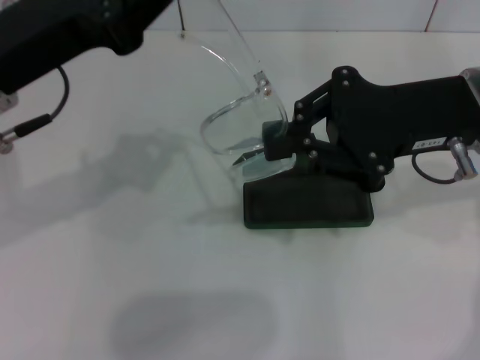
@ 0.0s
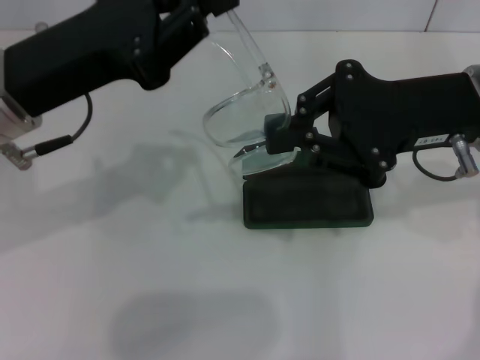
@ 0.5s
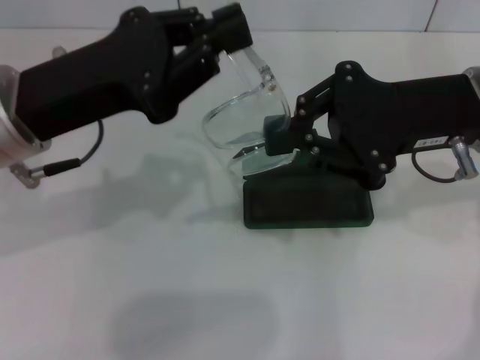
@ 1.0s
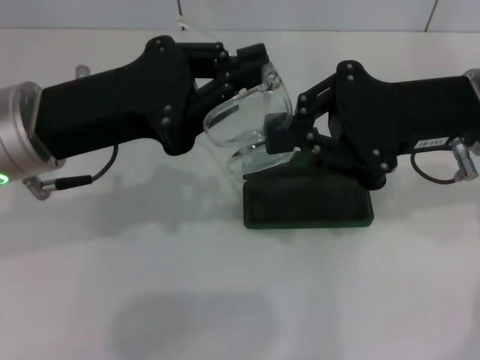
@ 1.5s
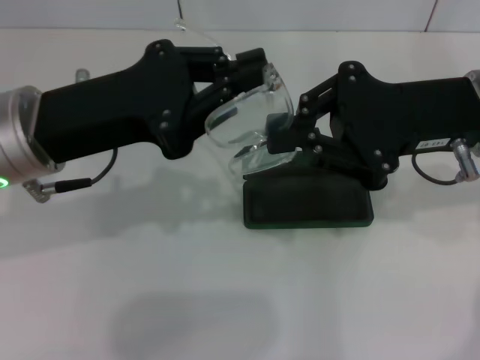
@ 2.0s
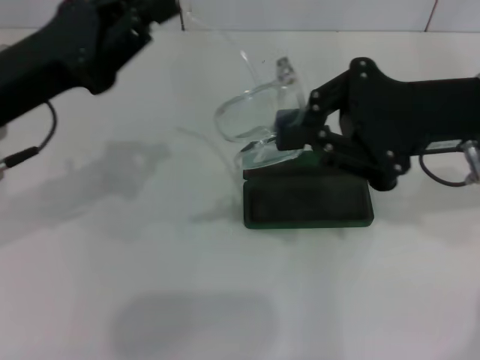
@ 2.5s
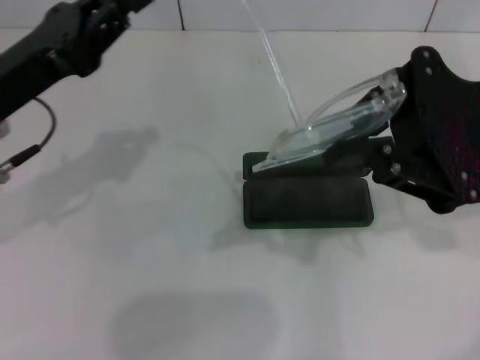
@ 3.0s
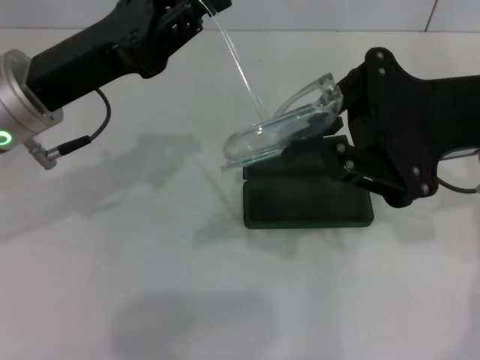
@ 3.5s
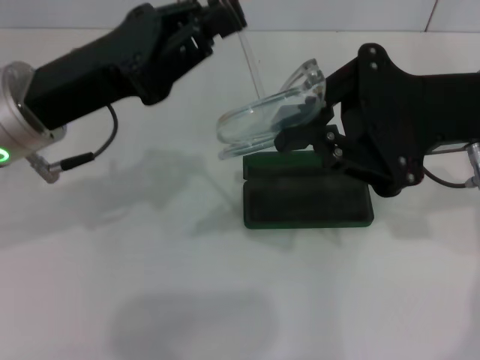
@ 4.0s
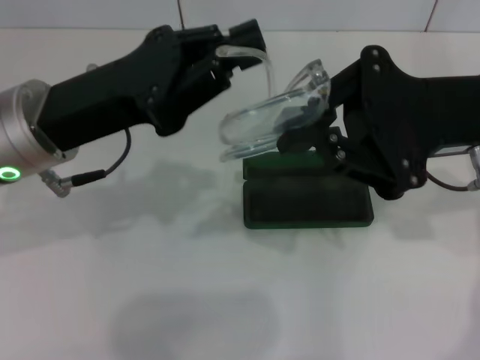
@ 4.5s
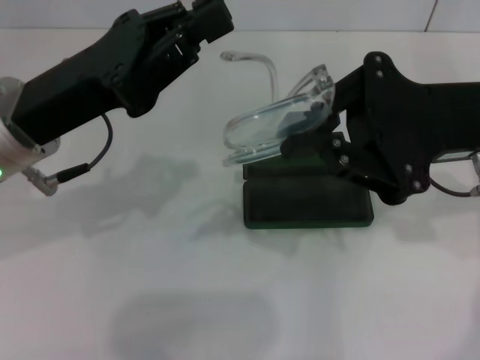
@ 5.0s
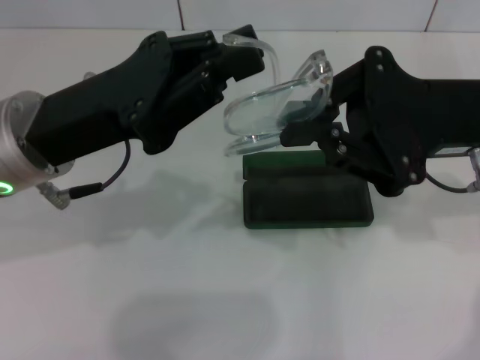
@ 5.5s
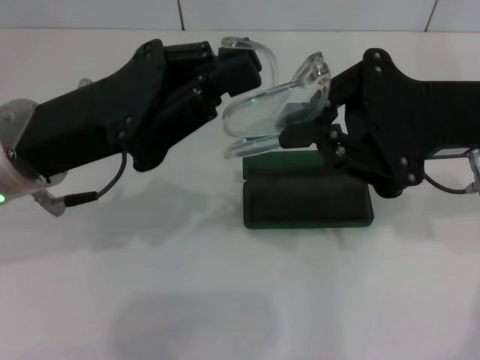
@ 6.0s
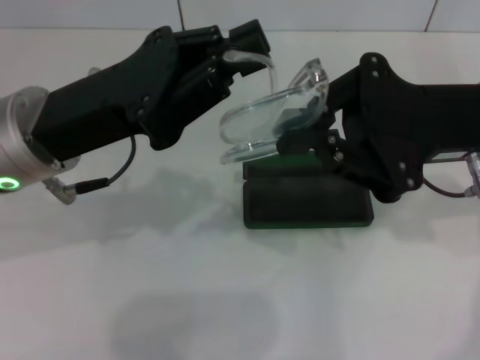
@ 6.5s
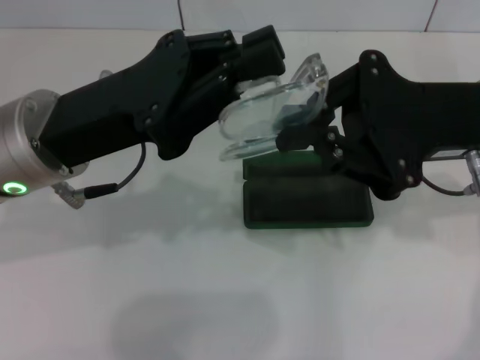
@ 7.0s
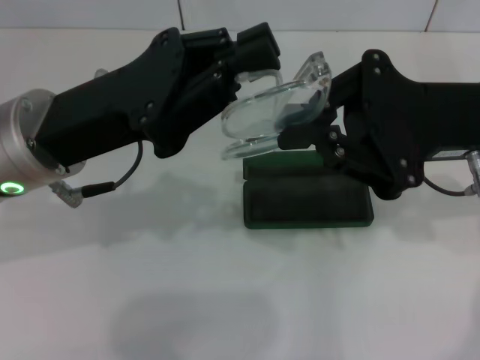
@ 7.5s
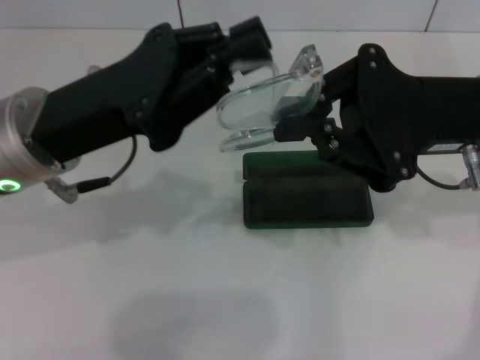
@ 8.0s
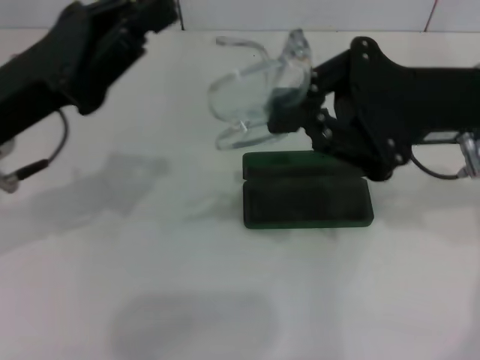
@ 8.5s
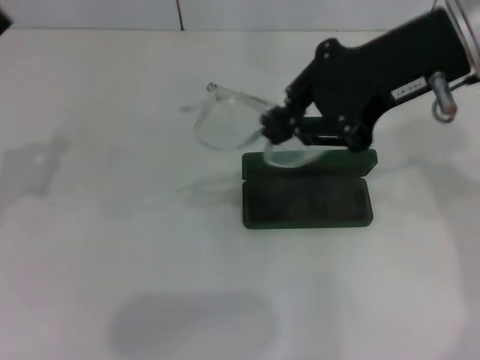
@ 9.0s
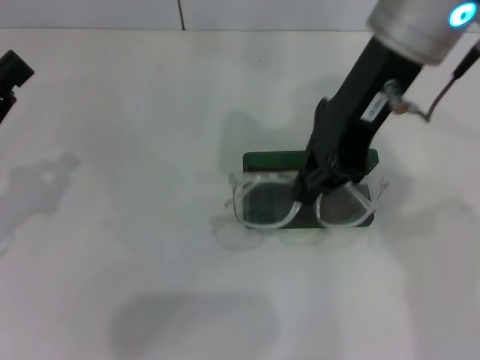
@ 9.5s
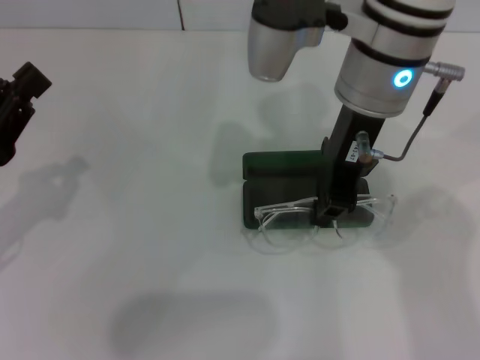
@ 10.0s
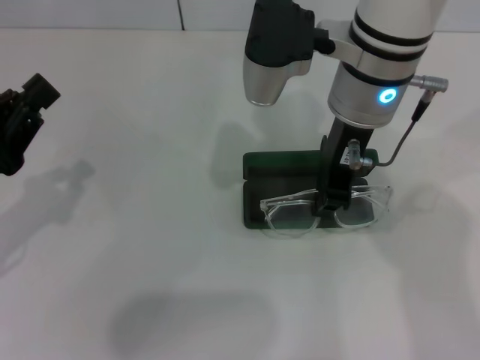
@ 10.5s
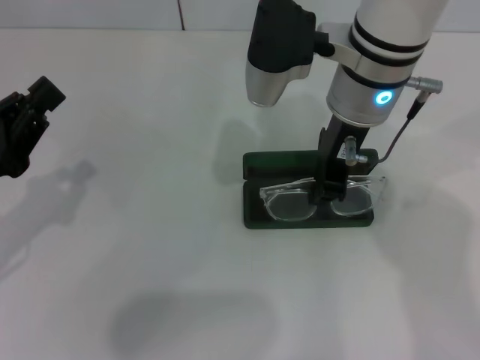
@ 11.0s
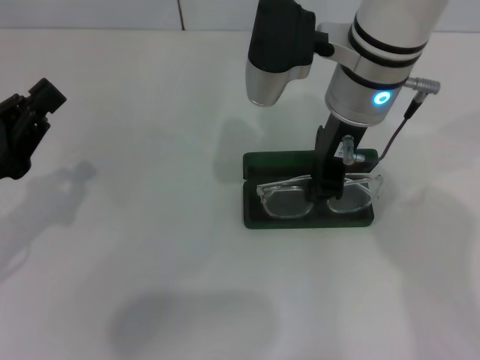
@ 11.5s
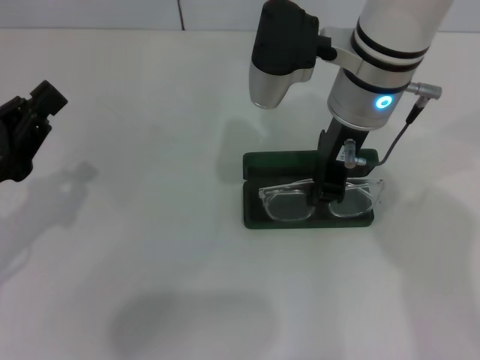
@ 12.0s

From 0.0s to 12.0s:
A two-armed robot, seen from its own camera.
Step, from 0.0s to 7.5s: Fold the frame with your left hand.
From 6.0s to 8.0s: Both grippers stay put.
From 8.0s to 10.0s: The right gripper is displaced to the left and forward by approximately 15 cm. Meanwhile the left gripper heads to the left and downward, covering approximately 15 cm.
From 10.0s to 12.0s: The grippers make only small movements.

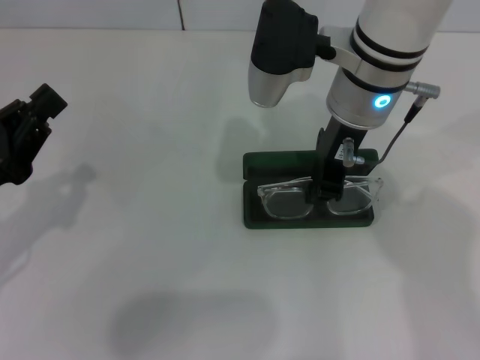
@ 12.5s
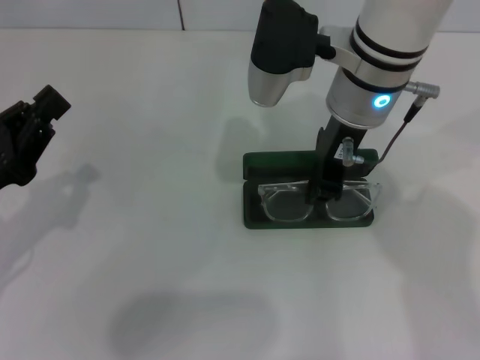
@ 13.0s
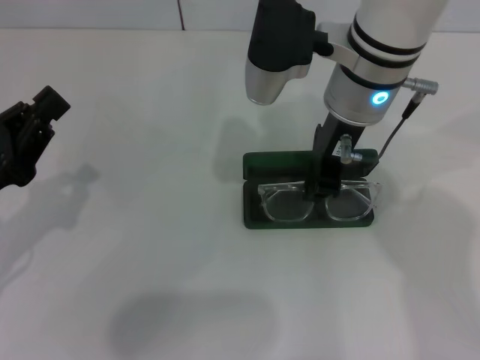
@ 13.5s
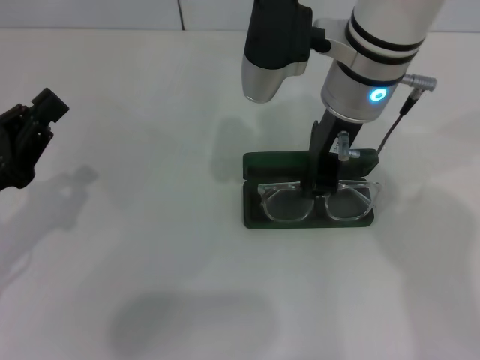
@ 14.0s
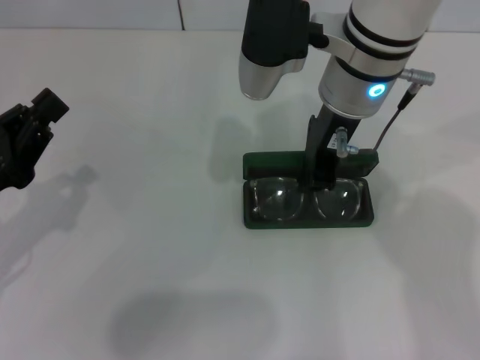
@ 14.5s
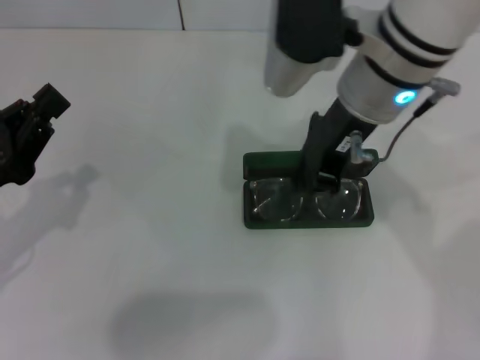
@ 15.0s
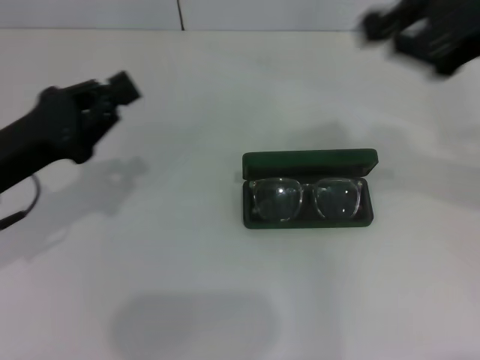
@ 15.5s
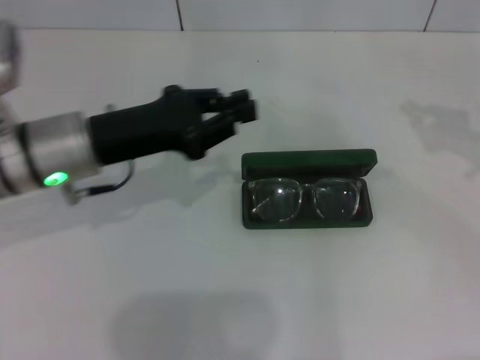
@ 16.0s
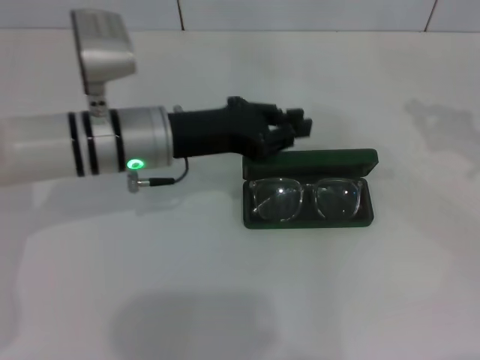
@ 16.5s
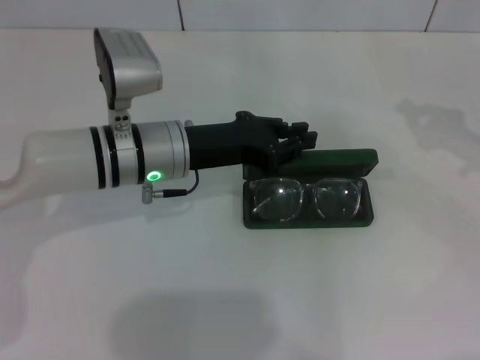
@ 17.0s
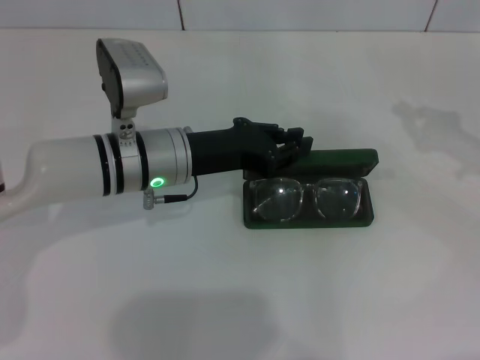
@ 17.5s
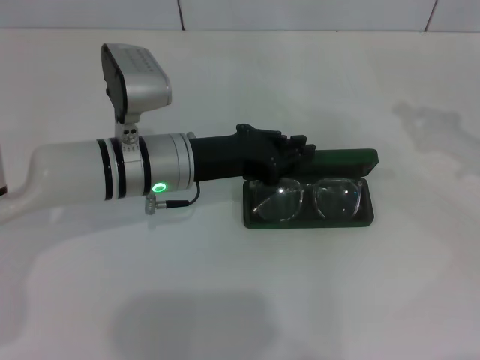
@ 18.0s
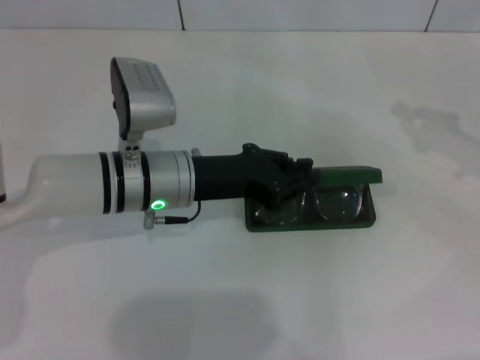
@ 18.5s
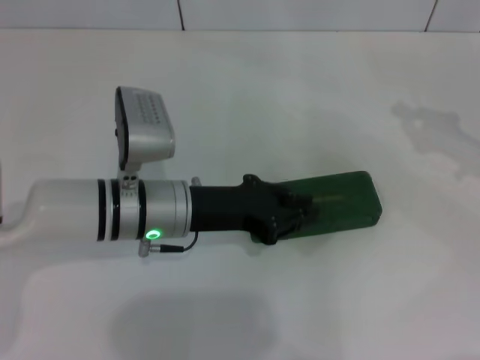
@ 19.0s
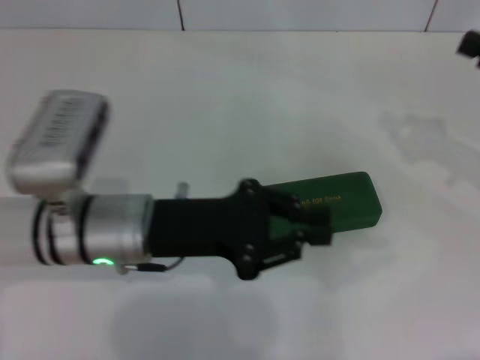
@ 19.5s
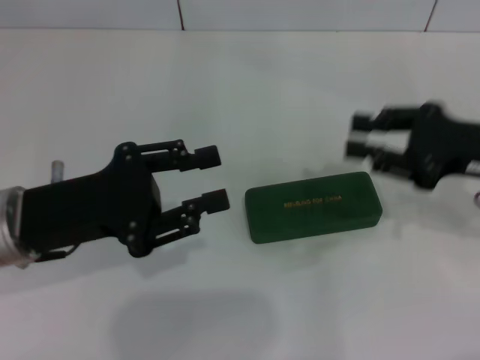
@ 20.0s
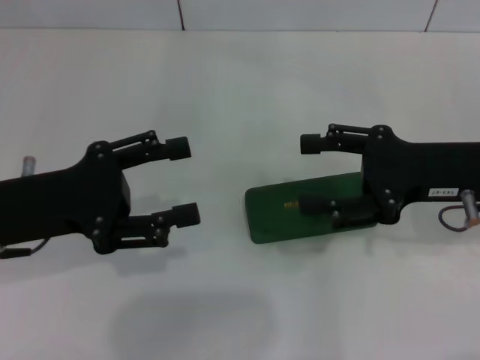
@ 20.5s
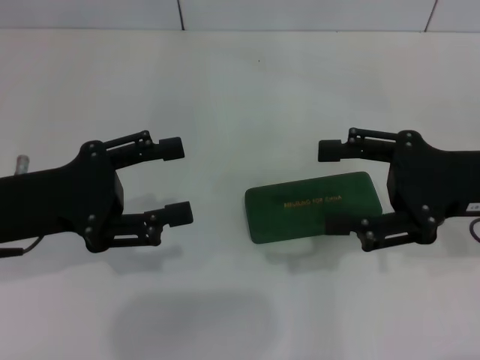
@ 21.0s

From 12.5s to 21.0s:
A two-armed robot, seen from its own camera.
Step, from 12.5s to 14.5s: Put the glasses into the case with your right hand.
Step, from 15.0s to 18.5s: Close the glasses case with your left hand.
From 12.5s to 14.5s: The grippers move only a little.
From 14.5s to 16.5s: The right gripper moves to the right, approximately 30 cm. The left gripper goes approximately 20 cm to the right and forward.
From 16.5s to 19.0s: The left gripper changes place by about 5 cm.
From 19.0s to 21.0s: The left gripper heads to the left and upward, covering approximately 15 cm, and opens. The right gripper travels to the left by approximately 10 cm, and opens its fingers.

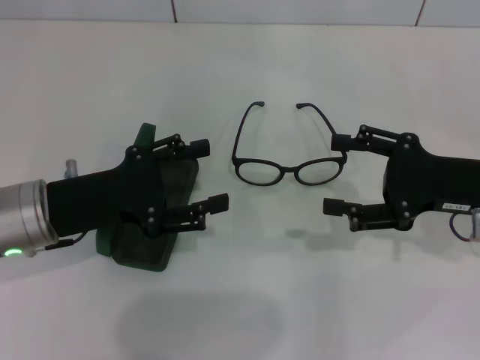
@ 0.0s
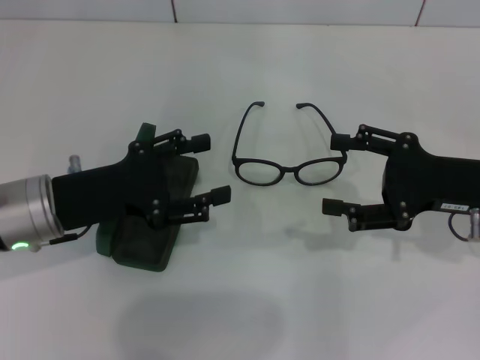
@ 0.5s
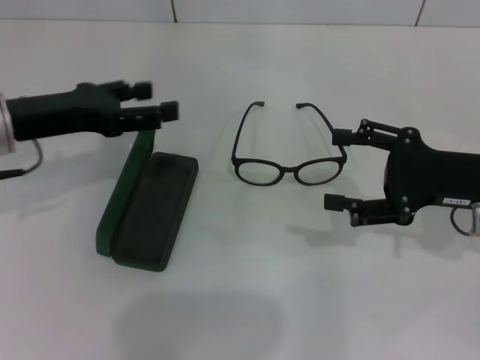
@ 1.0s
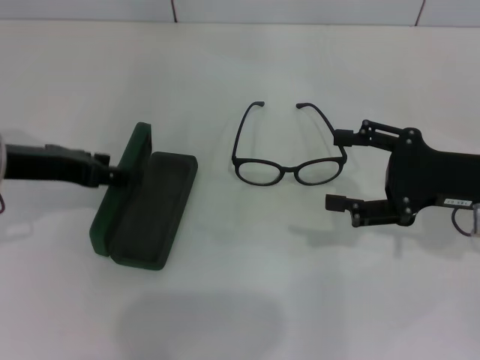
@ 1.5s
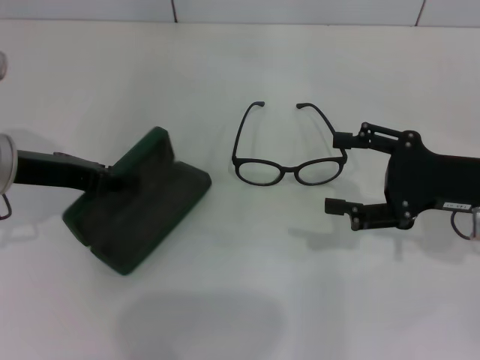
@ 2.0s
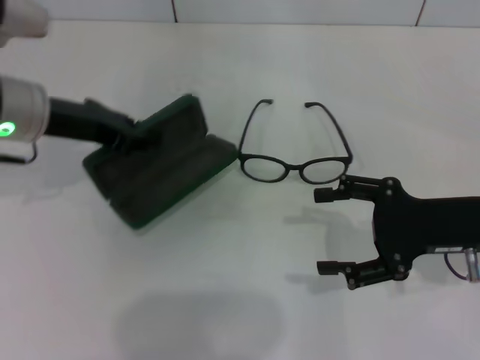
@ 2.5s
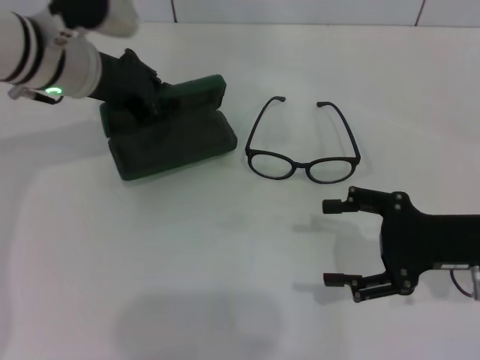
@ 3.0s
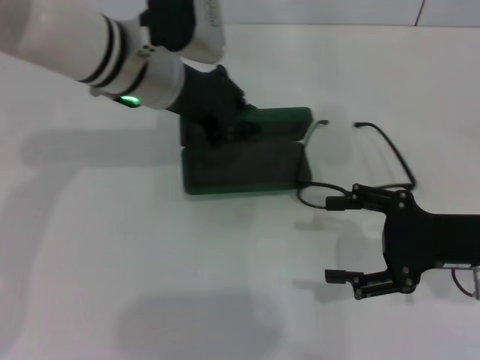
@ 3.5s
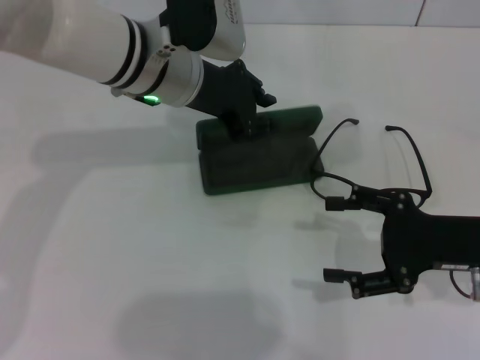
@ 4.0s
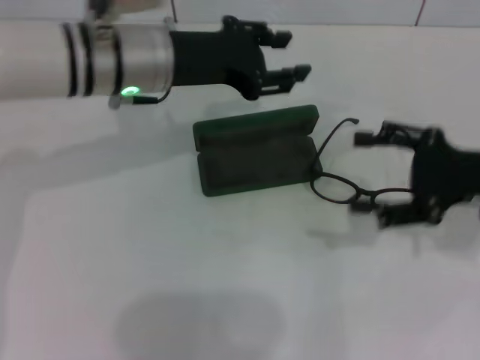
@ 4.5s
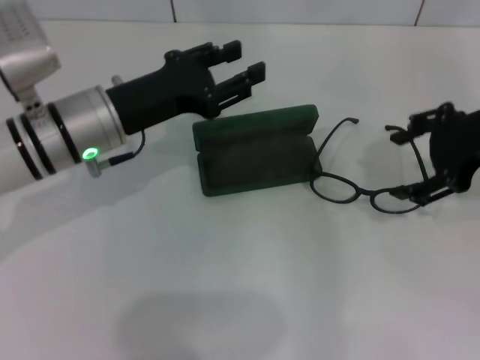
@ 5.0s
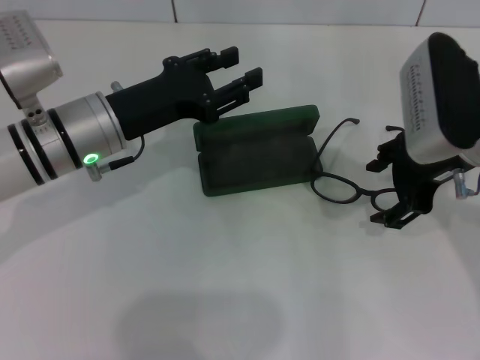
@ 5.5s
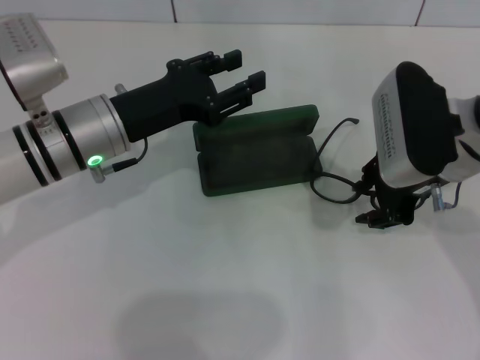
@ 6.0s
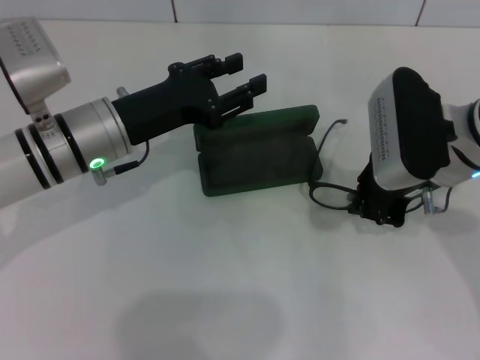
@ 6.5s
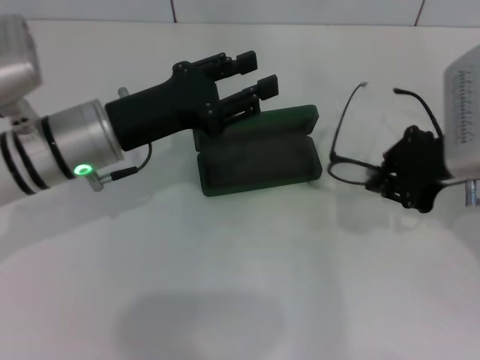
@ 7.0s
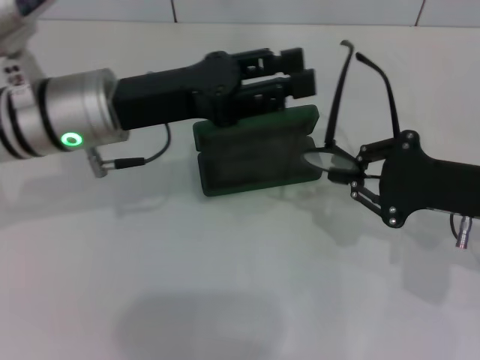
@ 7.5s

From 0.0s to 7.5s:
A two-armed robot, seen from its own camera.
Step, from 0.0s to 1.5s: Grab the glasses case with your left hand.
Step, from 2.0s to 4.0s: Place the glasses case in the center of the table with your left hand.
Step, from 4.5s to 6.0s: Grab the eyeglass frame with your right hand.
From 0.0s to 2.0s: The left gripper ends up approximately 5 cm from where it was, and closes.
From 2.0s to 4.0s: The left gripper is displaced to the right and forward by roughly 20 cm, and closes.
From 4.0s to 5.5s: The right gripper travels upward, forward and to the left by approximately 15 cm; the left gripper moves to the left, downward and backward, approximately 10 cm, and opens.
From 5.5s to 7.5s: The right gripper shifts roughly 10 cm backward, to the right and downward, and closes its fingers. The left gripper changes place by some 5 cm.
